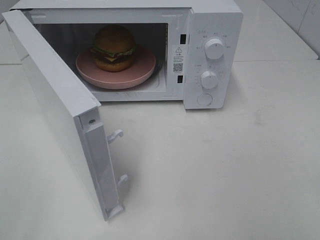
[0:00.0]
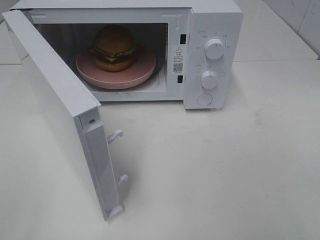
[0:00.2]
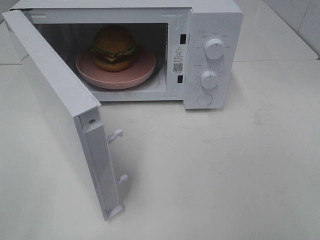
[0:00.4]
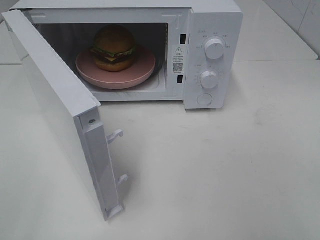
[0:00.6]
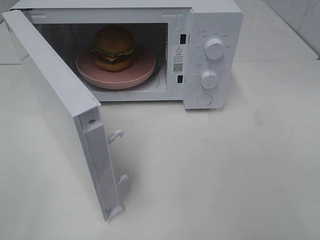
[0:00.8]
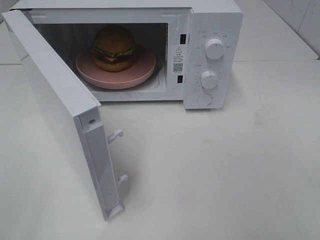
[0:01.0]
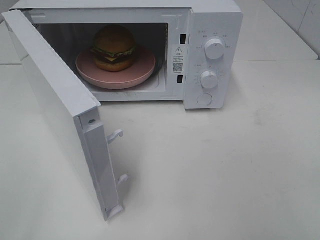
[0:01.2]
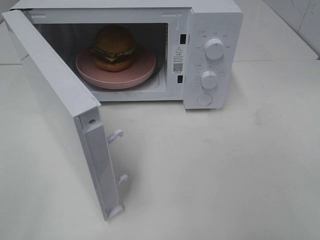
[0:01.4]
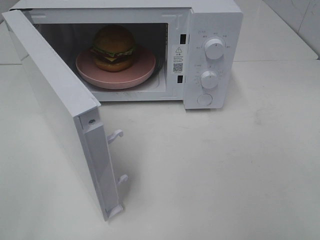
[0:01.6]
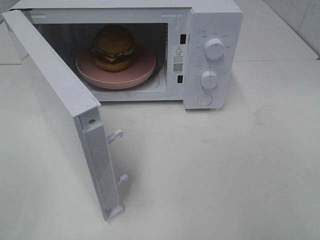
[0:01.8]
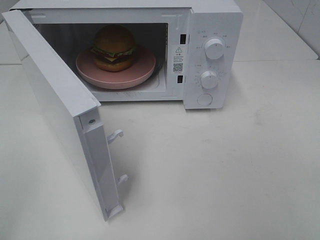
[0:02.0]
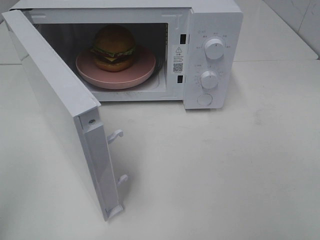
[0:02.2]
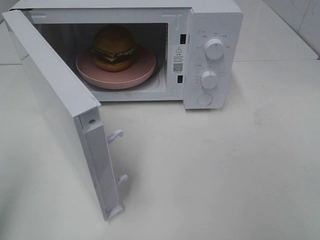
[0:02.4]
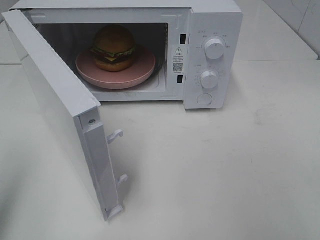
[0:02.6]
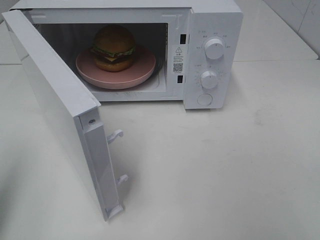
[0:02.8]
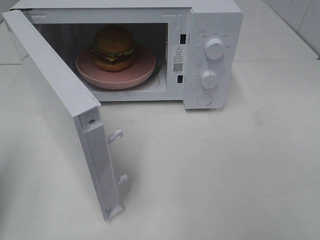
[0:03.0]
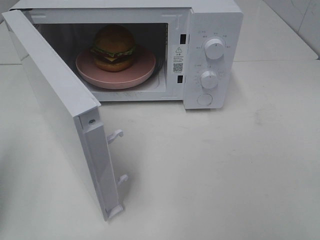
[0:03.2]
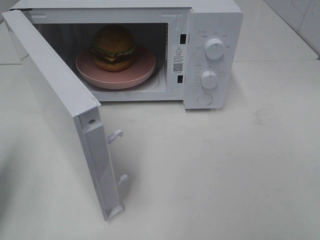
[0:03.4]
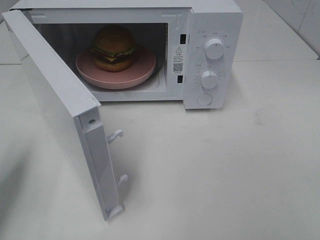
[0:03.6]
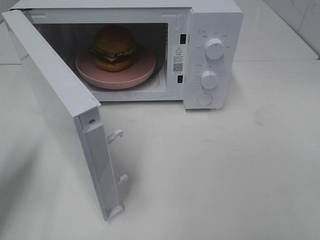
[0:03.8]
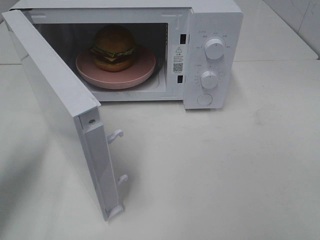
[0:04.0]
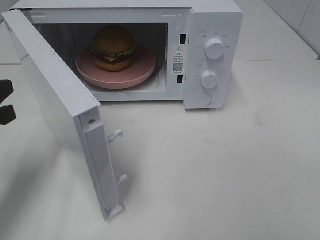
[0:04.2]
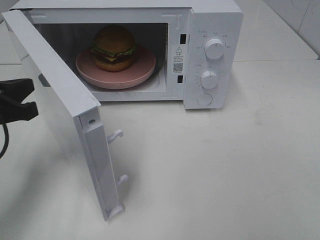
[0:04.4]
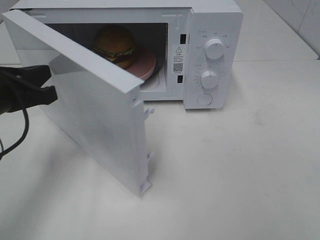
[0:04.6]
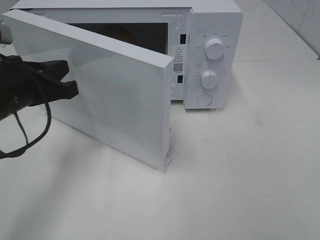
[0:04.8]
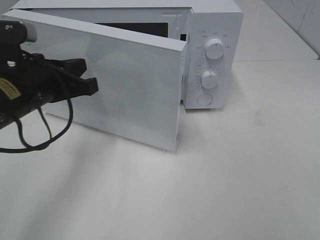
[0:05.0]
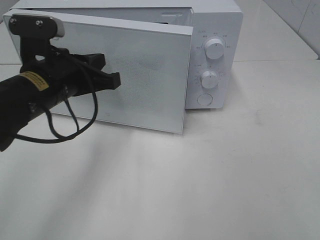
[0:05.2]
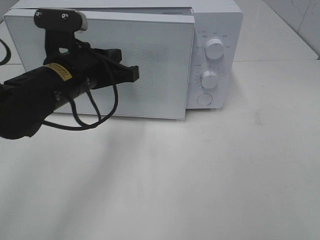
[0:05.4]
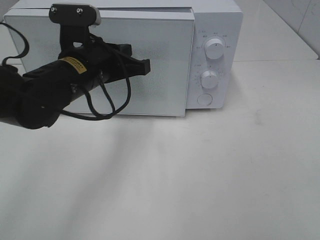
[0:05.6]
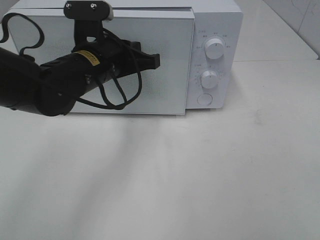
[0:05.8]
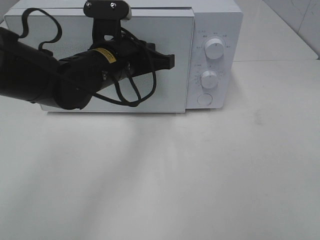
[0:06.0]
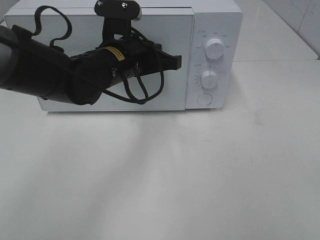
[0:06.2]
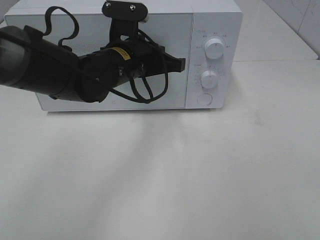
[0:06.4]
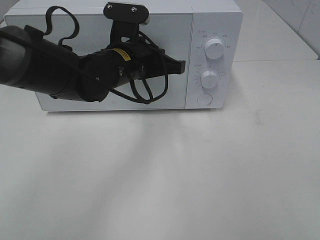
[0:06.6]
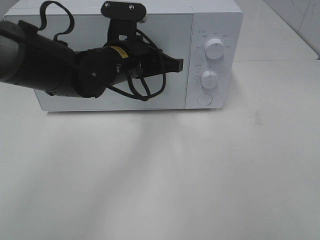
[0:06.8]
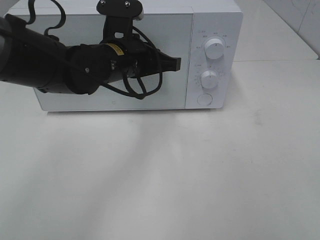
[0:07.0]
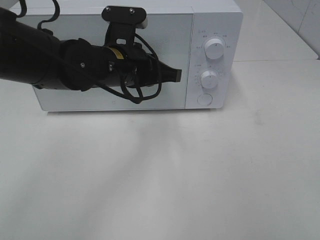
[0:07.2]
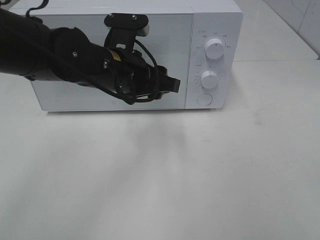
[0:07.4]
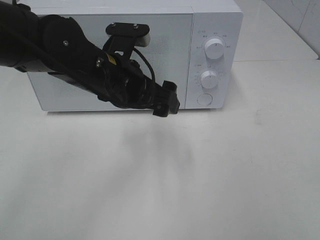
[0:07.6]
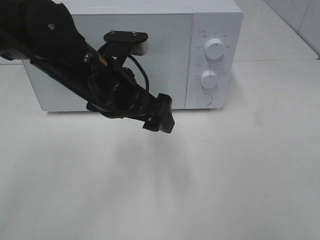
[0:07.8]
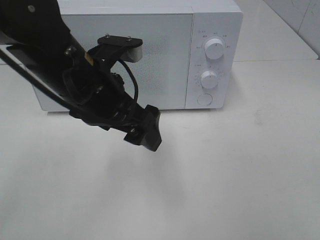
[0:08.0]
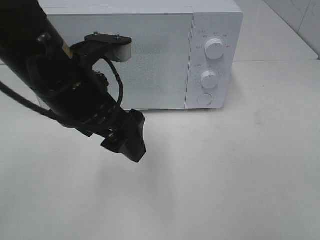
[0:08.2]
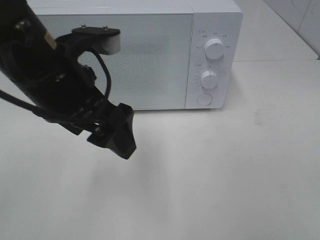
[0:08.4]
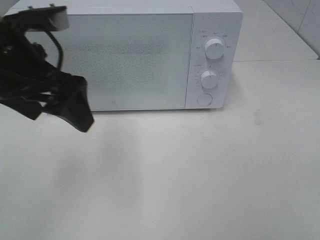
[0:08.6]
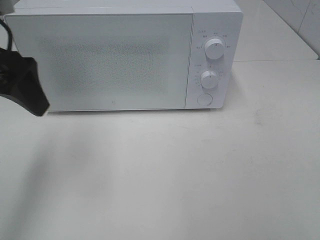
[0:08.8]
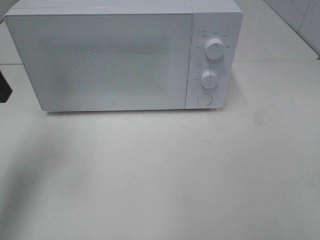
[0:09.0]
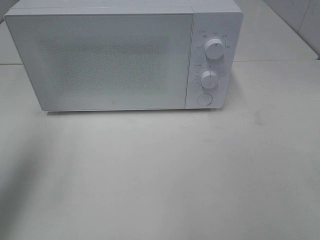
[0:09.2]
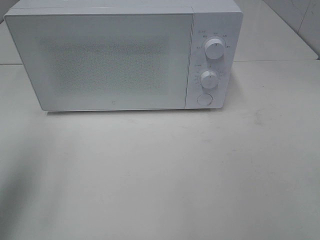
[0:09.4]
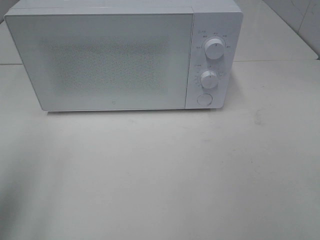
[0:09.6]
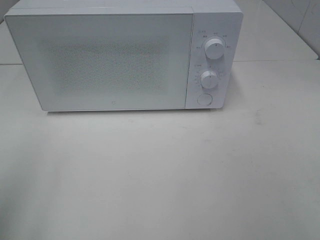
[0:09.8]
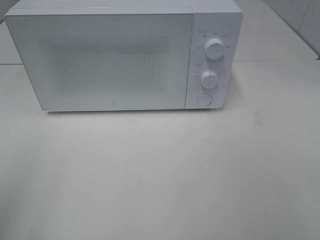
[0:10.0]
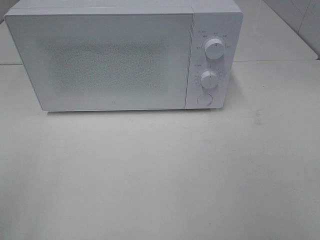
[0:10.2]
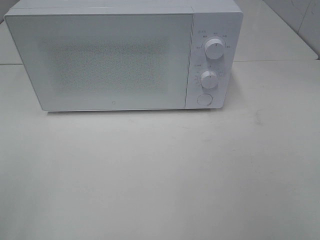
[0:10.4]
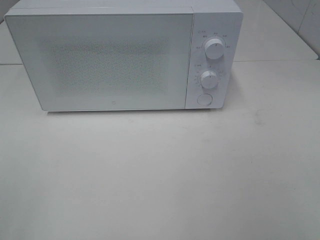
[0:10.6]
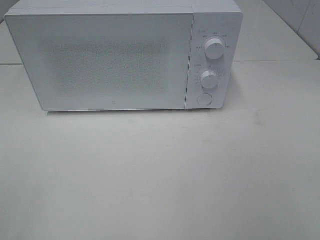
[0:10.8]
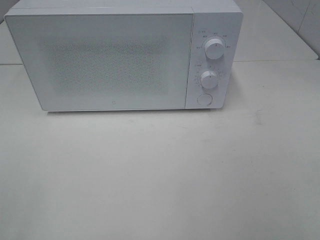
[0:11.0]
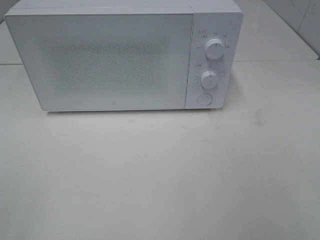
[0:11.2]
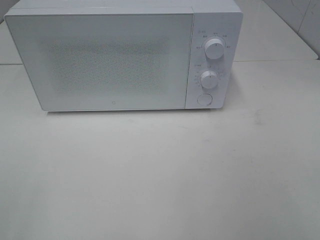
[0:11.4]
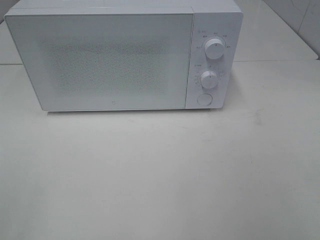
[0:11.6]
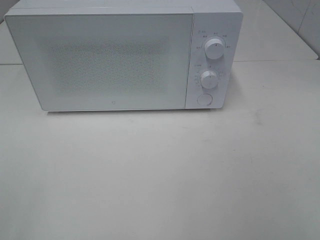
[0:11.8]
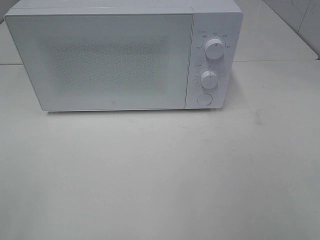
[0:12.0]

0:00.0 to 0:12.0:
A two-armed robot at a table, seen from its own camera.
Task of the whole recording: Heat the burger.
Step, 0:00.0 to 0:06.8: Left hand: close the microwave door.
0:00.0 to 0:01.6: Both grippers stay put.
0:01.6 to 0:03.0: The left gripper is displaced forward by approximately 15 cm, and closes its fingers.
0:03.0 to 0:04.4: The left gripper travels forward, to the right and downward by roughly 15 cm.
0:04.4 to 0:06.0: The left gripper moves to the right and forward, some 20 cm.
0:06.0 to 0:07.6: The left gripper opens up.
0:07.6 to 0:09.0: The left gripper goes approximately 25 cm to the left and upward.
0:09.0 to 0:10.4: The left gripper moves backward, roughly 20 cm.

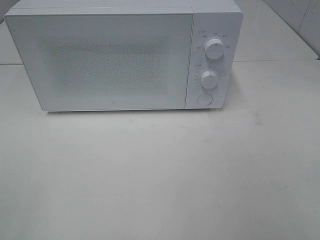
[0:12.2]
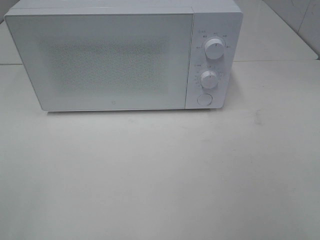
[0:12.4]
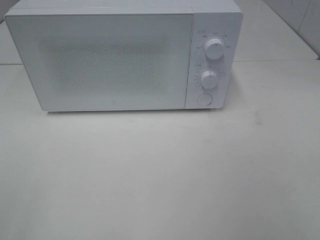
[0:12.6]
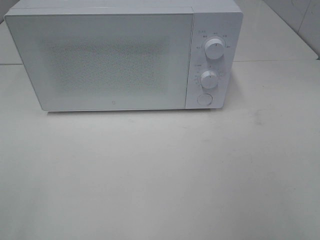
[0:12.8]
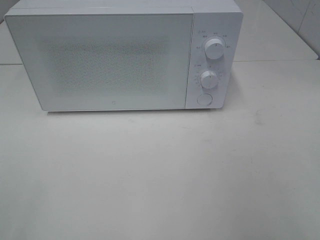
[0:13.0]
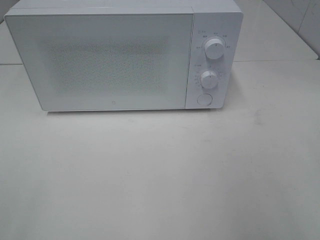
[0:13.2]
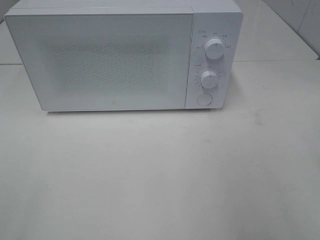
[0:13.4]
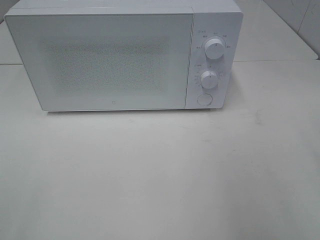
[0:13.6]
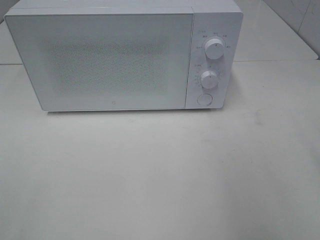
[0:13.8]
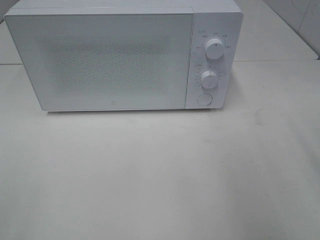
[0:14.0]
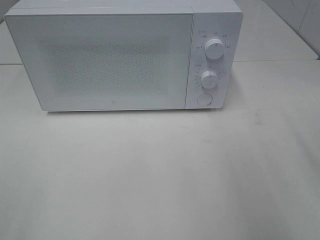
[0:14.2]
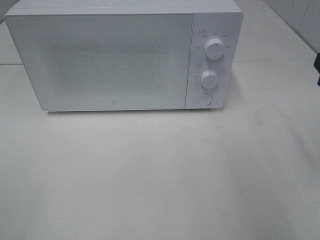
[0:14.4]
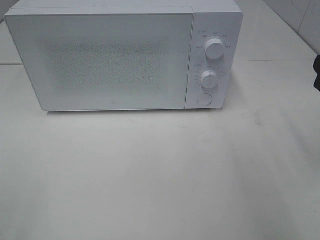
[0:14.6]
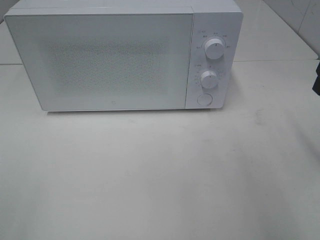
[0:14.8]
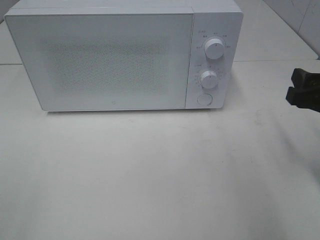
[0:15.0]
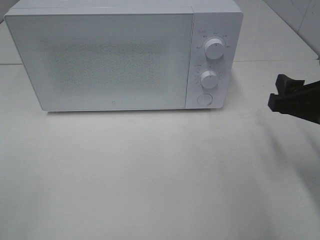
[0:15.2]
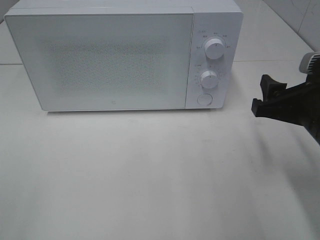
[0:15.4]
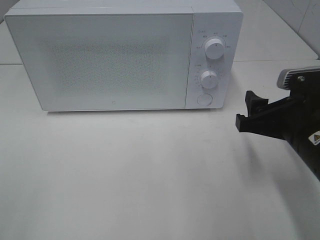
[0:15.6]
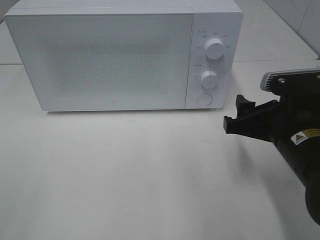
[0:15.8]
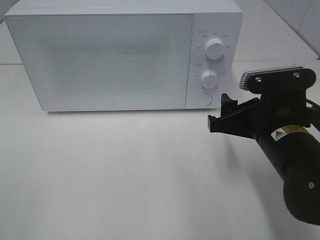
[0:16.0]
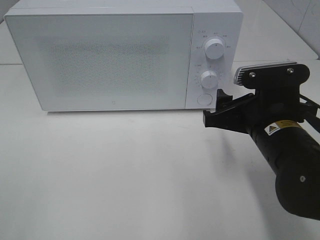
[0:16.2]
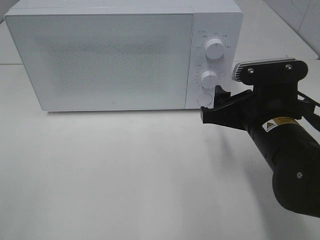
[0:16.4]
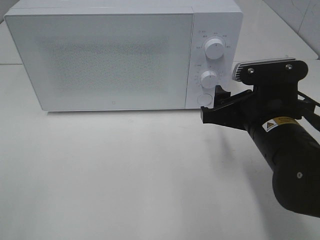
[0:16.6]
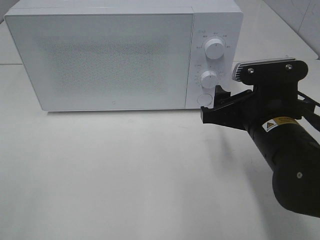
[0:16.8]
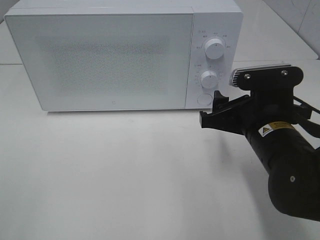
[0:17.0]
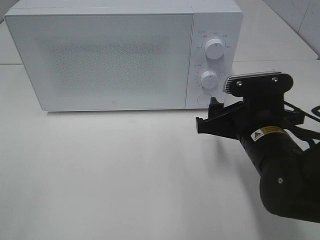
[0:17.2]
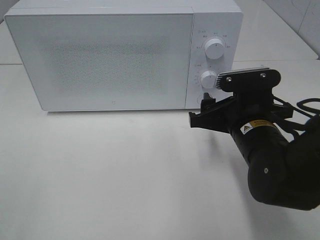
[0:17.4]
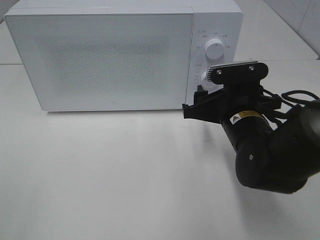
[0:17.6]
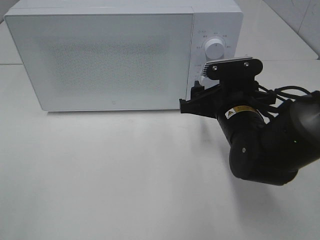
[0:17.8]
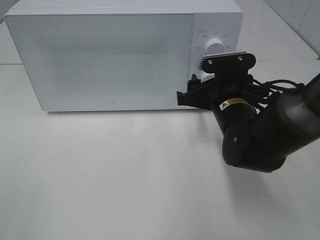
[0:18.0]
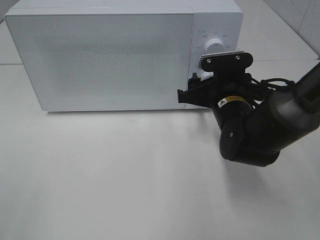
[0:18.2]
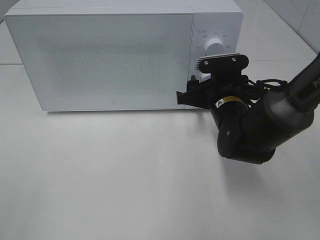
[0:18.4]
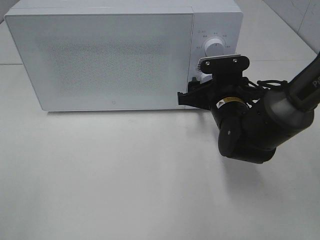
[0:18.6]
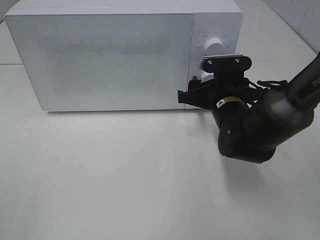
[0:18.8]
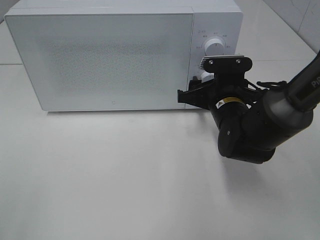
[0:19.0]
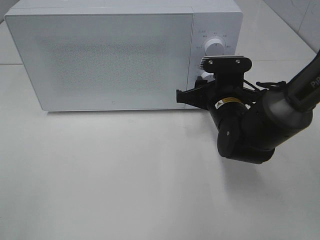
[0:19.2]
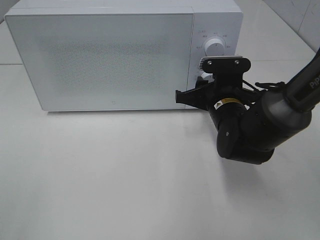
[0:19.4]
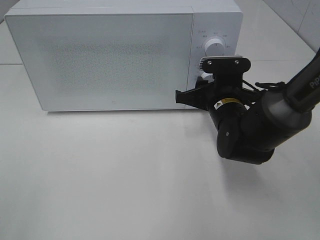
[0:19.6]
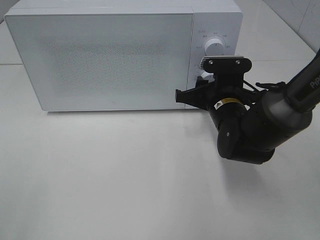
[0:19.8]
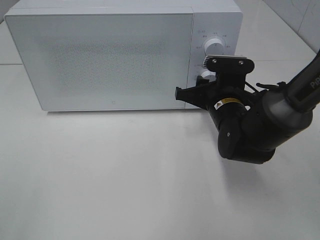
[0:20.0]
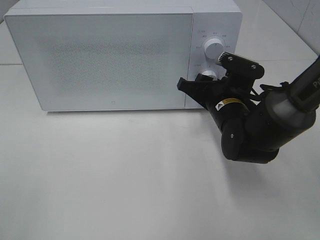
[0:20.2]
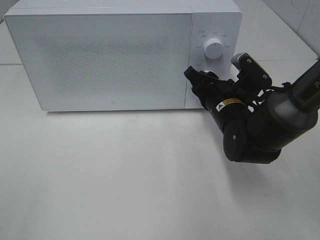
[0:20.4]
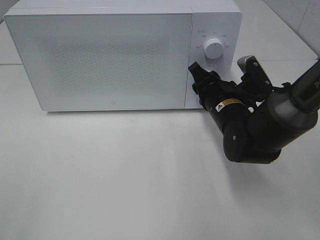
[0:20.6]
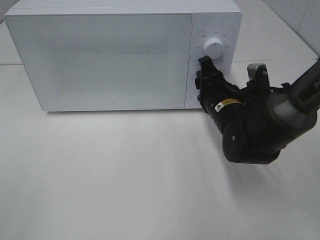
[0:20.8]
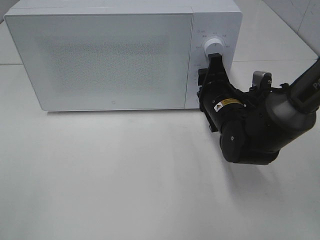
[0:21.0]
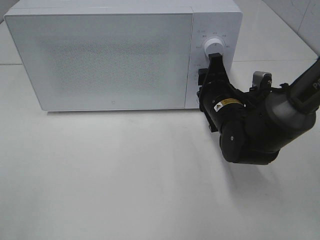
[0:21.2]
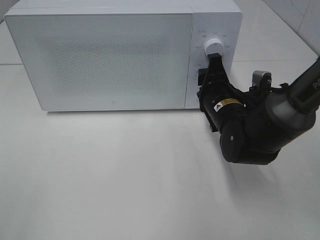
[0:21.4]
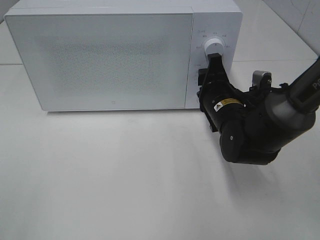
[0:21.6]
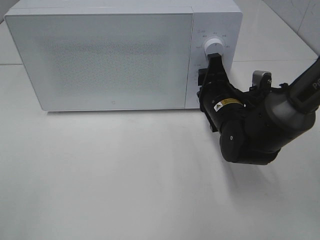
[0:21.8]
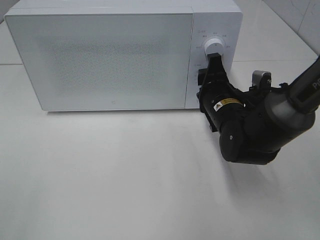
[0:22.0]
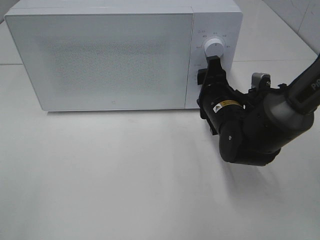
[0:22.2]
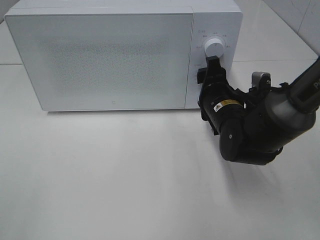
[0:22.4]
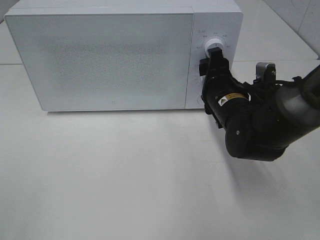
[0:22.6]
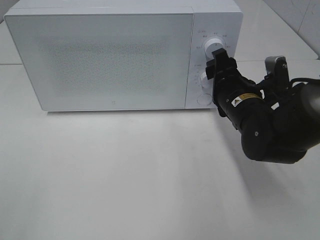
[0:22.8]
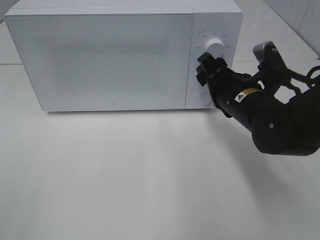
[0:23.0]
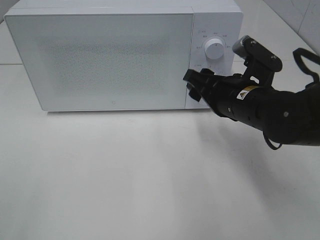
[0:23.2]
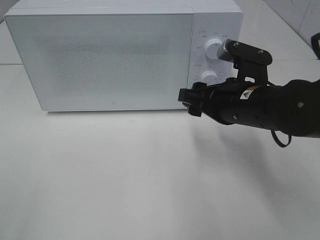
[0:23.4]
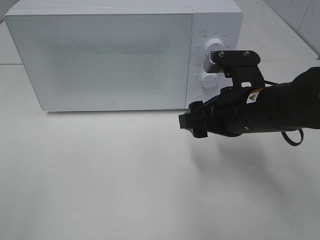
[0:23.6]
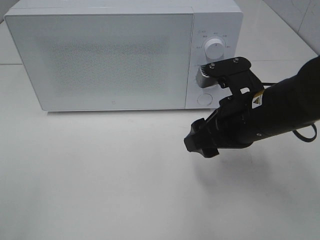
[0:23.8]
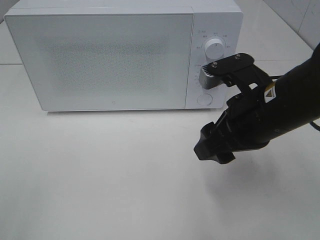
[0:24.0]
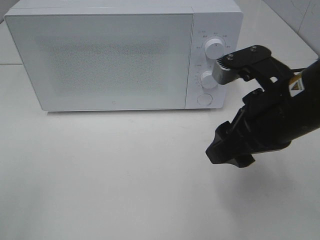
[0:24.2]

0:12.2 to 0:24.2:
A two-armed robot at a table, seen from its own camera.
Task of the whole recording: Heat the burger.
Step, 0:12.2 to 0:22.4: Right hand: twist timer button.
0:13.8 to 0:15.2: The right gripper moves downward and forward, approximately 10 cm.
0:15.2 to 0:16.6: The right gripper goes about 10 cm to the left.
0:16.6 to 0:18.2: The right gripper is displaced forward by approximately 10 cm.
0:18.2 to 0:19.8: The grippers make only small movements.
0:21.2 to 0:22.6: The grippers stay close to where they were, moving slightly.
0:22.6 to 0:24.2: The right gripper moves backward and upward, roughly 15 cm.
